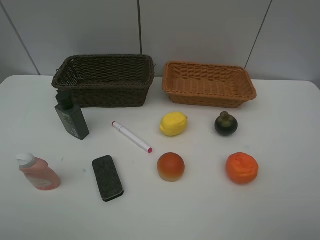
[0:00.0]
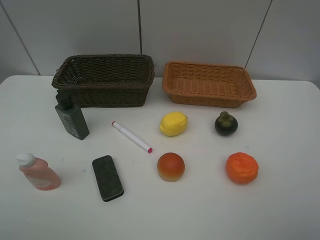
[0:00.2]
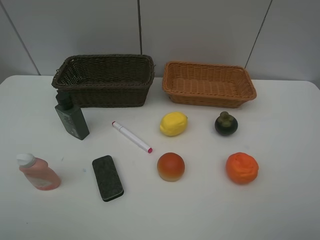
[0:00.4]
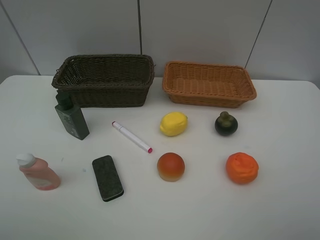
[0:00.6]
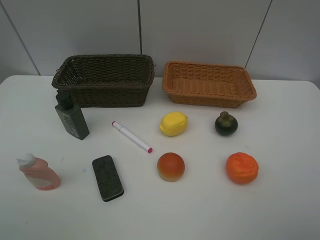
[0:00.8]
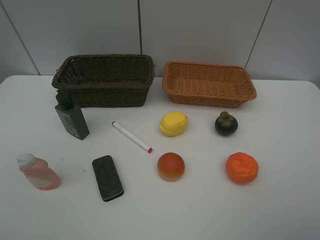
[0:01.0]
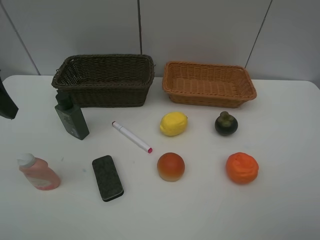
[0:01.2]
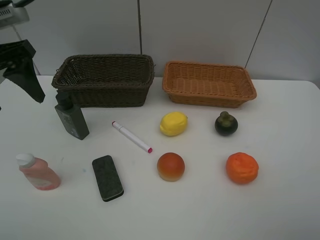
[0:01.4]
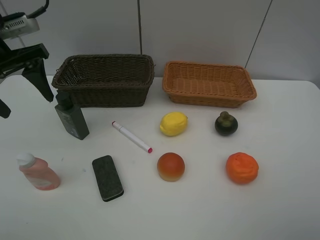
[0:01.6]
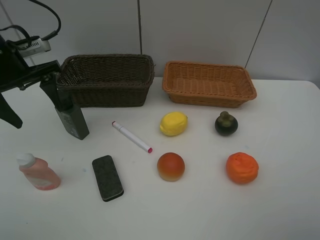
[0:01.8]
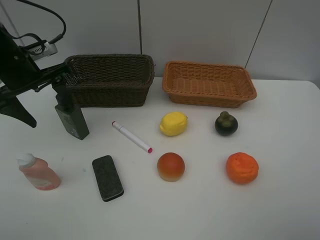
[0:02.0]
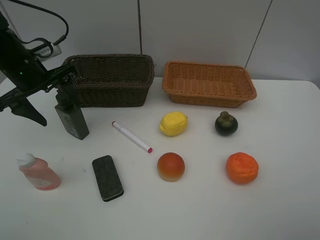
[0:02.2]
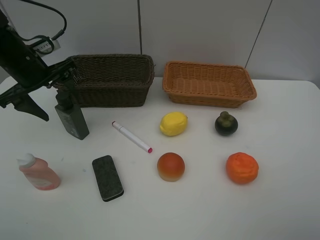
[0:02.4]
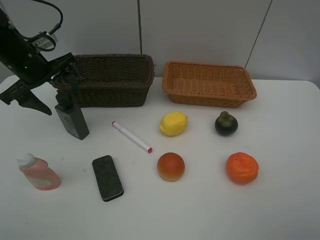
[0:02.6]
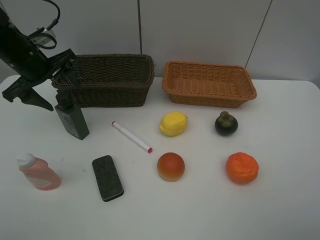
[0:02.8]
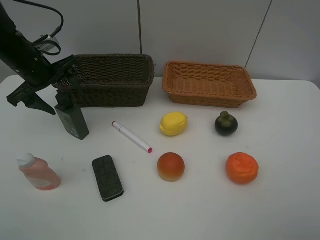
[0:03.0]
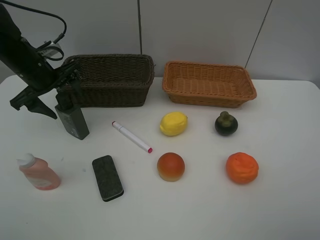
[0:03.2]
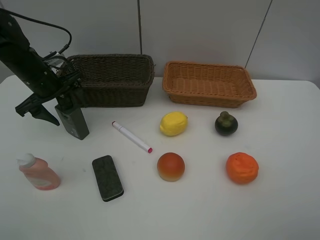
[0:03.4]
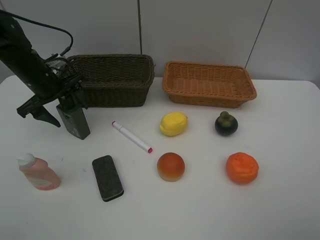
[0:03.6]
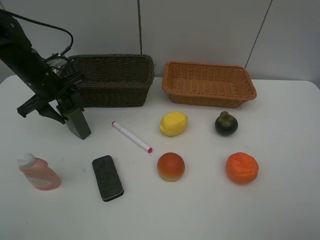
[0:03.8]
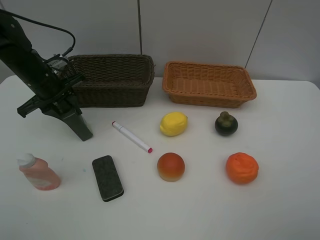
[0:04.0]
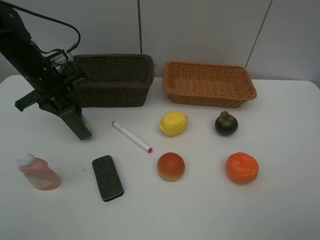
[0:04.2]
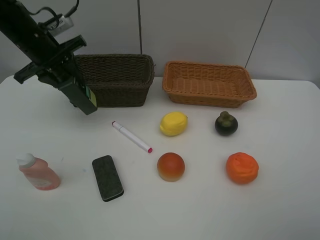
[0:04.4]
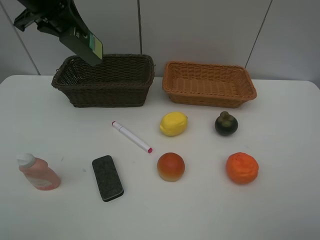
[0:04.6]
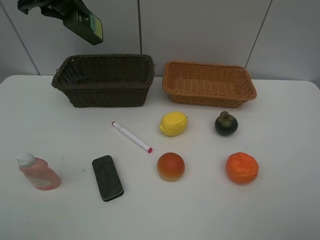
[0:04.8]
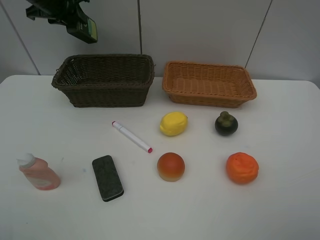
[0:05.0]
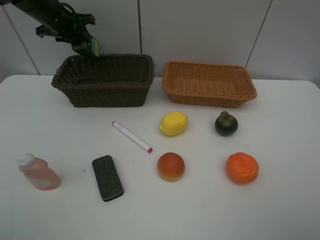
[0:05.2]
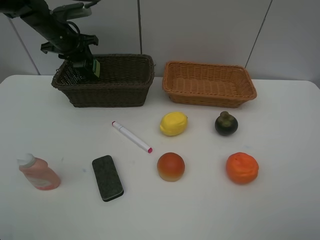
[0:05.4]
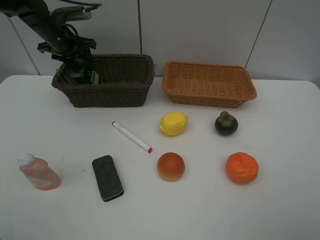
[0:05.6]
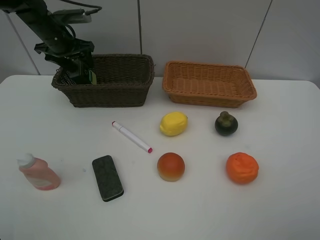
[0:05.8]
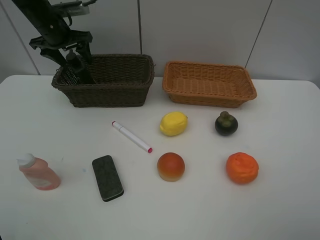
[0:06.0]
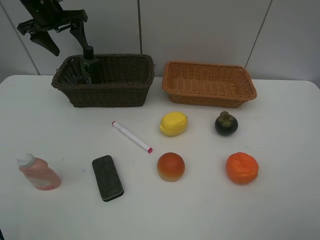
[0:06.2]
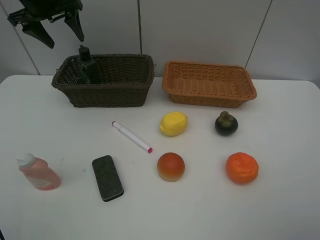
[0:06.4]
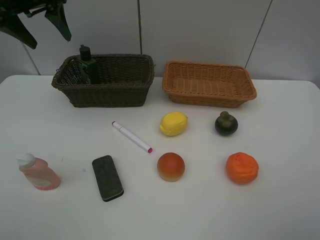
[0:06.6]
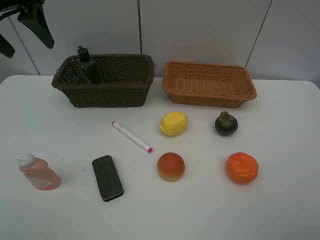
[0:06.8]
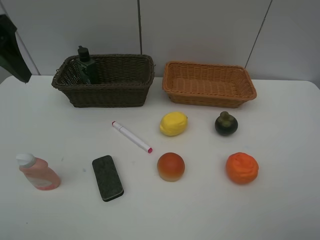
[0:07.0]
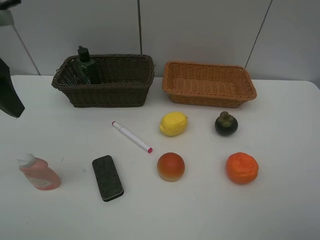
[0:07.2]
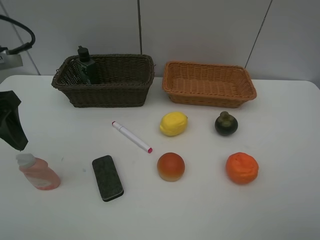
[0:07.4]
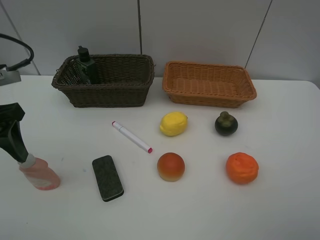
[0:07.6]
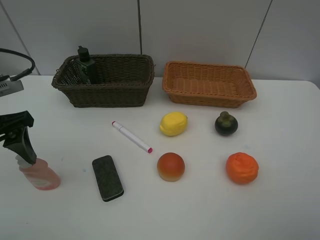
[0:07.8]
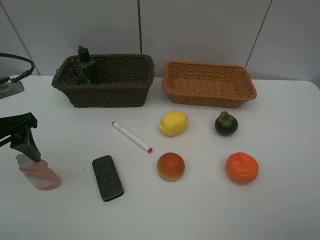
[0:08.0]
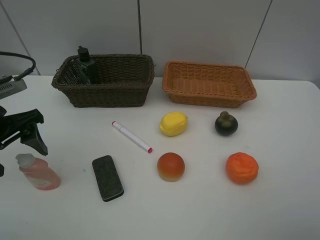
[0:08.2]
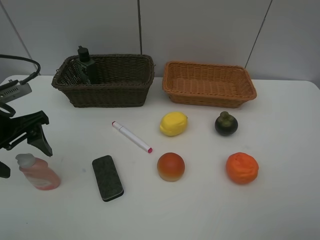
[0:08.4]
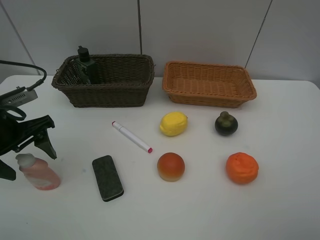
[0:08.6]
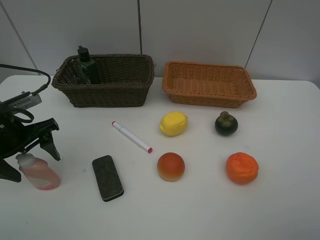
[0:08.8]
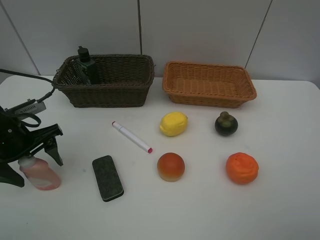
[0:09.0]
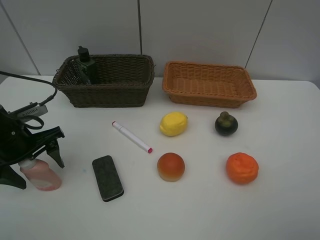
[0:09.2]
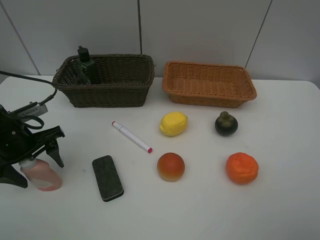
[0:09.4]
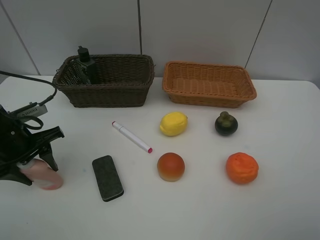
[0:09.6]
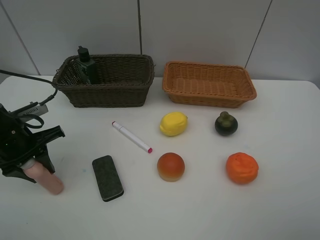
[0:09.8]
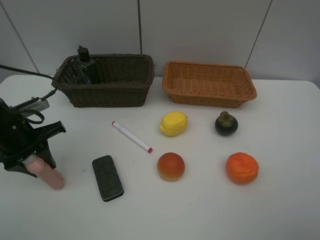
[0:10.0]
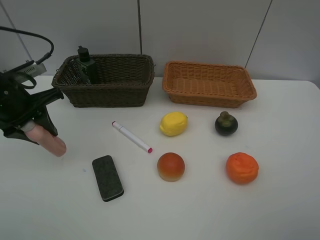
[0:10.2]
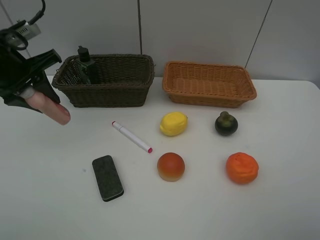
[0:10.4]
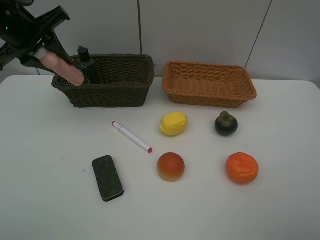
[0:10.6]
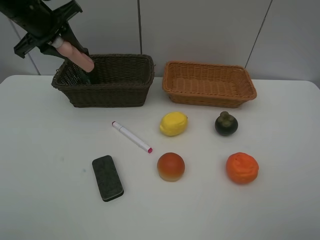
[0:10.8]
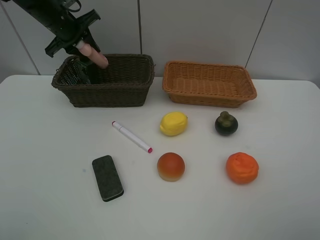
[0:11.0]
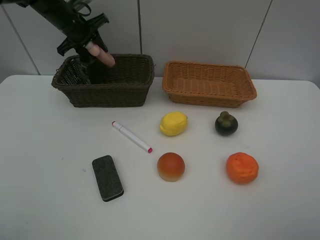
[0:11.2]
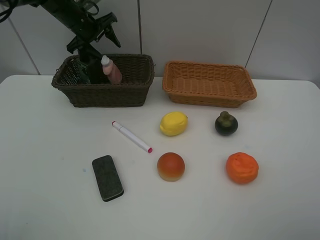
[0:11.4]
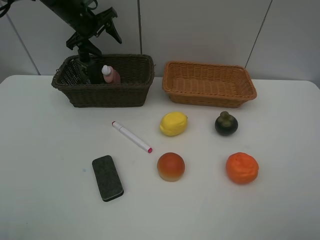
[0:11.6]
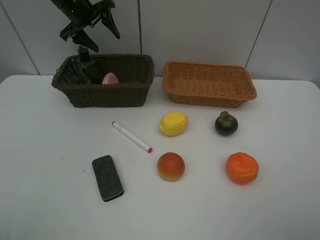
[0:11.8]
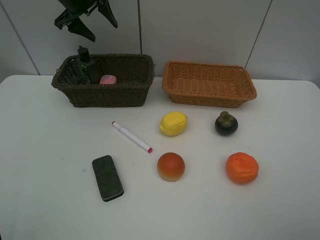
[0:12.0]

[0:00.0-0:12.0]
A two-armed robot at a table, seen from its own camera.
Task of the whole recording: Place multiple objects separately in different baskets.
Step, 0:00.0 to 0:04.2: Pick up the hard facial cleanser with left gripper.
Step, 0:04.4 to 0:06.0: Place the hard facial cleanser in the dark basket with left gripper.
Step, 0:06.2 to 0:10.0: Pick up the laundry detergent with left gripper.
Step, 0:10.2 to 0:11.6: Place the laundry detergent in the dark basket with left gripper.
0:00.0 to 0:01.6: The left gripper goes roughly 30 cm forward.
0:01.6 to 0:03.0: The left gripper heads downward and forward, covering roughly 10 cm.
0:03.0 to 0:04.4: The left gripper travels upward by approximately 5 cm, and closes its fingers.
0:04.4 to 0:06.0: The left gripper heads forward, covering roughly 10 cm, goes upward and returns, approximately 10 cm each way, and opens.
0:06.0 to 0:07.6: The left gripper goes approximately 30 cm backward.
0:07.6 to 0:09.0: The left gripper travels downward by roughly 10 cm.
0:09.0 to 0:10.4: The left gripper goes about 15 cm upward and forward, and closes up.
0:10.4 to 0:12.0: The left gripper moves forward, some 20 cm, and opens.

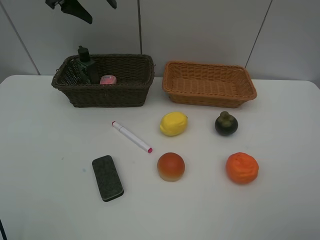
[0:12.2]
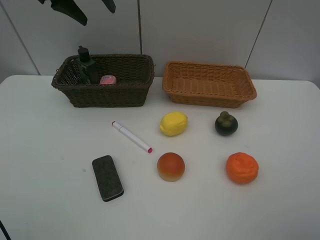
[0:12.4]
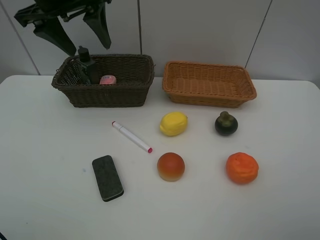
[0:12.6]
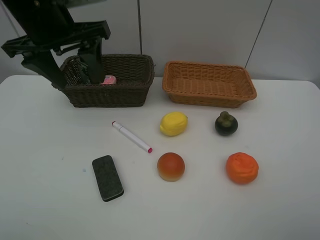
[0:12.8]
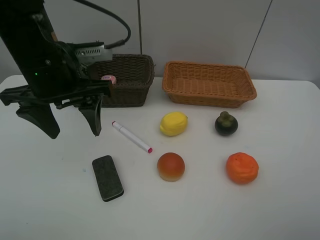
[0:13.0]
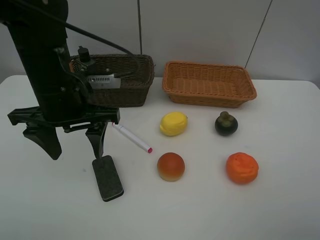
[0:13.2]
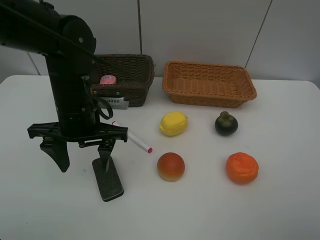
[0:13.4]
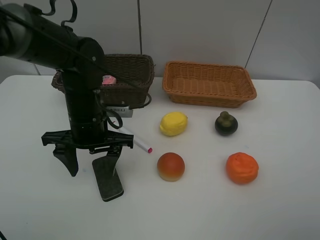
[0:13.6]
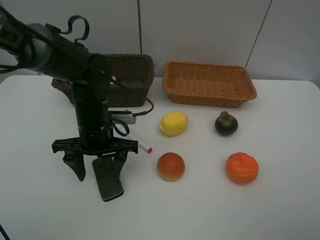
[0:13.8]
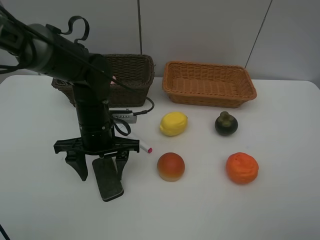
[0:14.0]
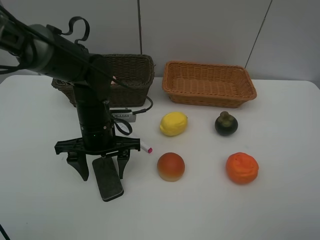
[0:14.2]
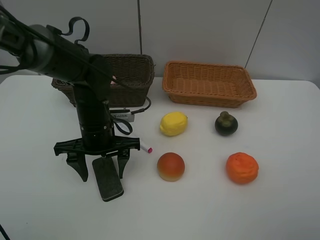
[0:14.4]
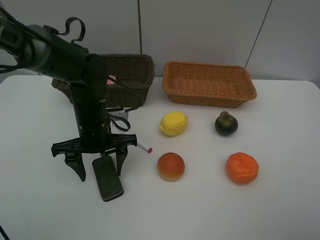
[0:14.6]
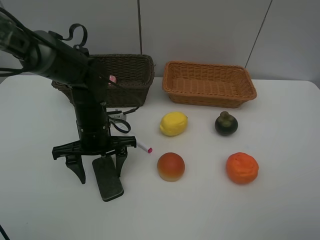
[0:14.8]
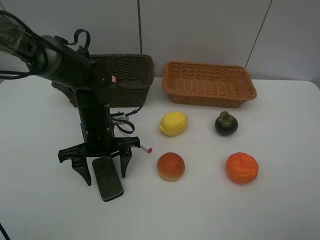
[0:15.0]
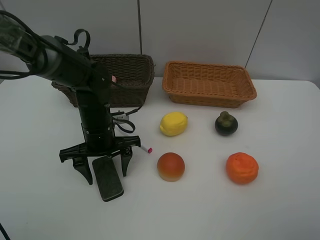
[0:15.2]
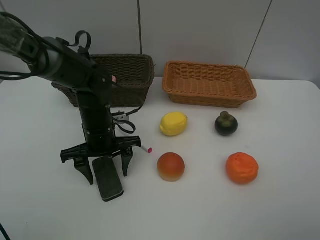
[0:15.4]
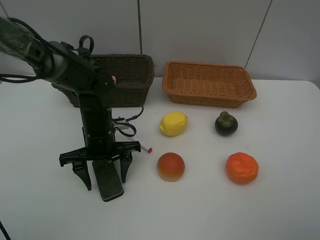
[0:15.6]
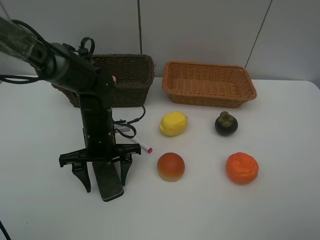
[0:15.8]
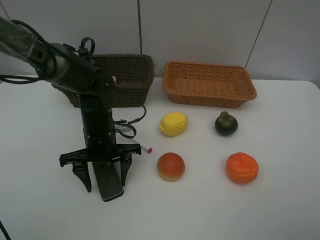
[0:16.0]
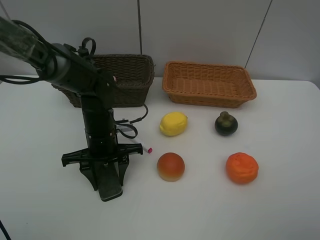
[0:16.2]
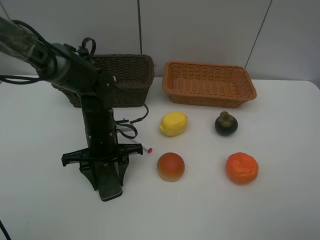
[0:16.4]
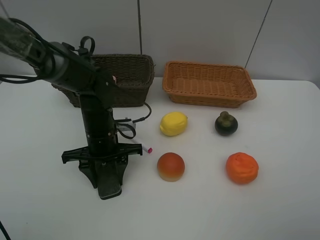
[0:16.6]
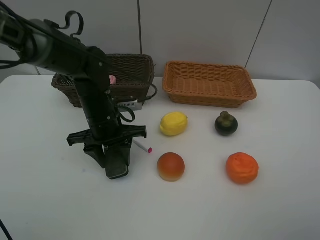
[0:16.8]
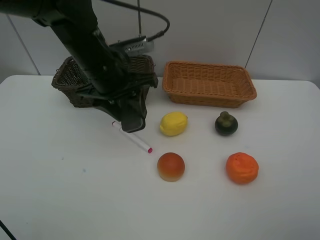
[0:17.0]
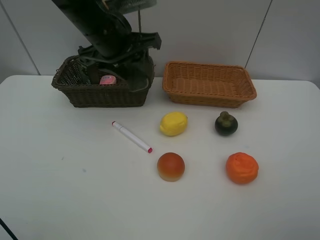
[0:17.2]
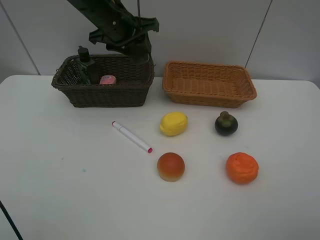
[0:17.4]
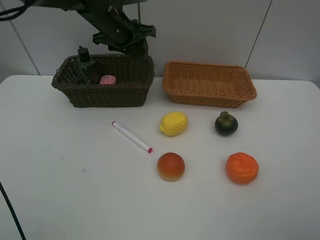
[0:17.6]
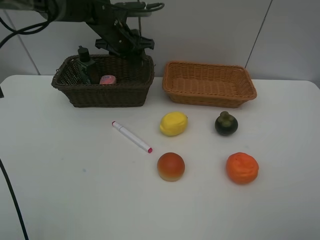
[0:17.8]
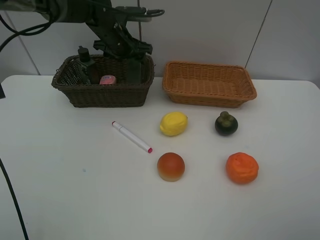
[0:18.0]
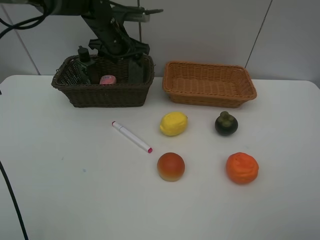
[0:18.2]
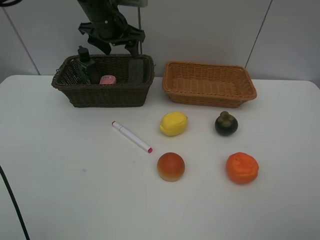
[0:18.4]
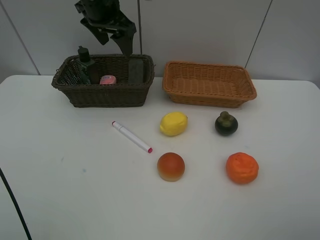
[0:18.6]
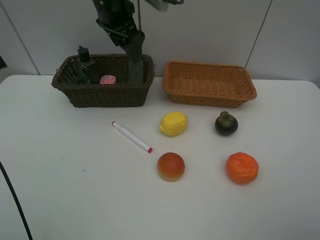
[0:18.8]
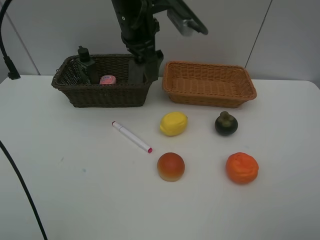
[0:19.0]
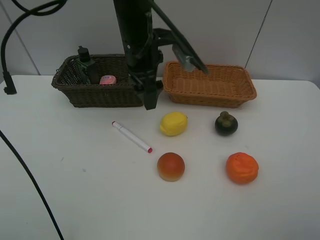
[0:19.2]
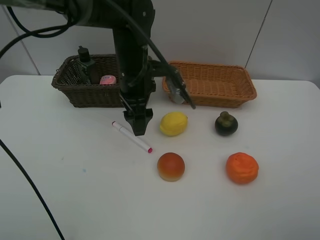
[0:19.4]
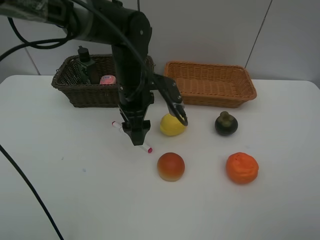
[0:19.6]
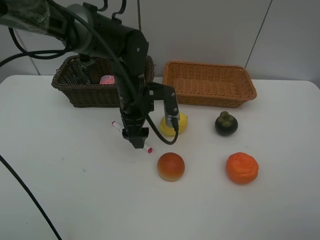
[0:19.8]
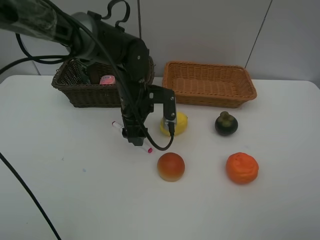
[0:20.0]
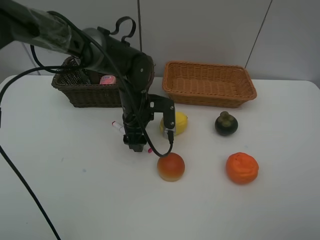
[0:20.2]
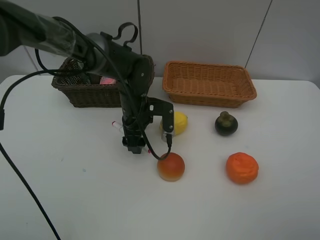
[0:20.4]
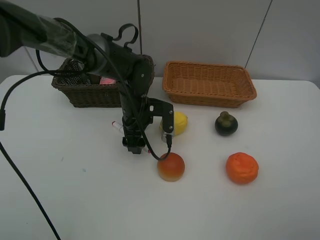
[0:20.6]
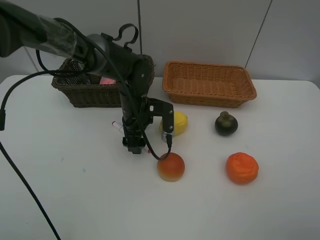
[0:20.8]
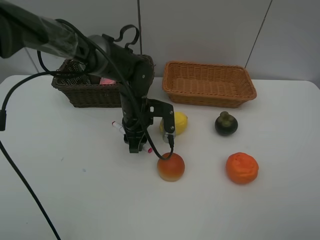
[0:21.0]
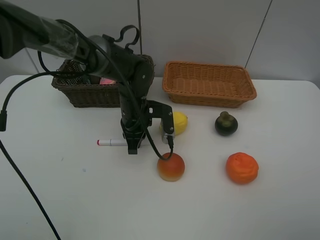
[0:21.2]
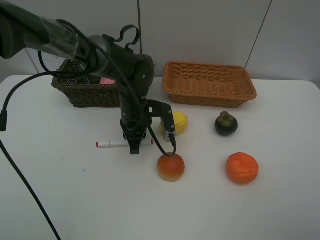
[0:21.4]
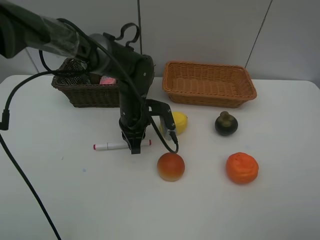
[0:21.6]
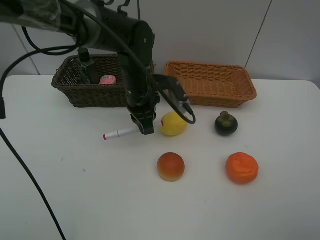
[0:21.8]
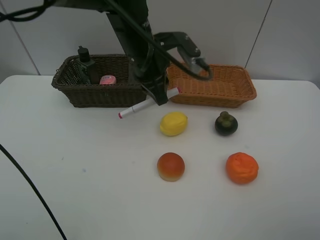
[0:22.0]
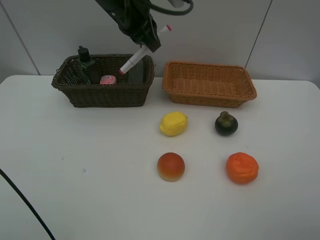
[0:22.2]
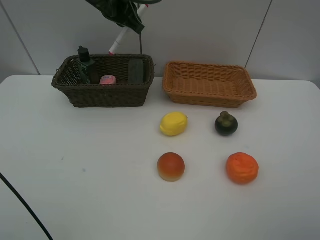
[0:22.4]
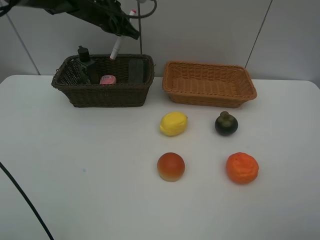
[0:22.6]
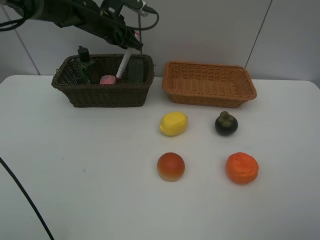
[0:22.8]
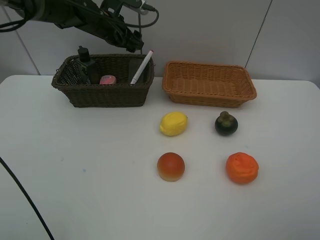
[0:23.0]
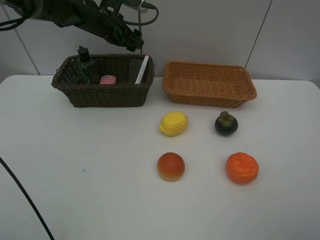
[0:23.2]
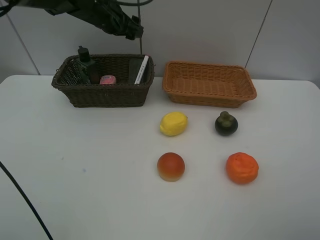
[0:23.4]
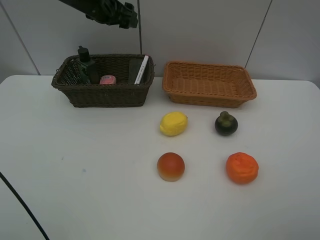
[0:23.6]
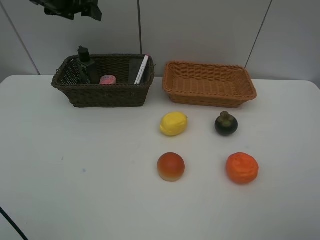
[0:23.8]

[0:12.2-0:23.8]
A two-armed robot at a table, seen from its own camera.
Task of the whole recording: Place multiple objects separately in different baskets.
Step, 0:12.2 to 0:16.8: Pick up blackboard eraser with left gripper.
Step, 0:17.0 to 0:18.4: Place the blackboard eraser in the dark basket with left gripper.
Step, 0:18.6 to 0:21.6: Pick up the red marker with left gripper.
Step, 0:21.8 to 0:23.2: Place the red marker in the dark basket with left gripper.
0:12.2 to 0:13.6: The left gripper goes approximately 30 cm backward and downward.
0:13.6 to 0:15.0: There are only small adjustments of the grippers.
0:15.0 to 0:16.6: There are only small adjustments of the grippers.
0:16.6 to 0:18.0: The left gripper travels forward and upward by some 25 cm, and opens.
0:18.0 to 0:19.4: The left gripper is displaced backward and to the right by about 15 cm.
0:19.4 to 0:21.0: The left gripper shifts approximately 10 cm downward, and closes its fingers.
0:21.0 to 0:22.4: The left gripper goes approximately 25 cm upward and forward, and closes.
0:22.4 to 0:23.8: The left gripper shifts approximately 15 cm to the left, and opens.
